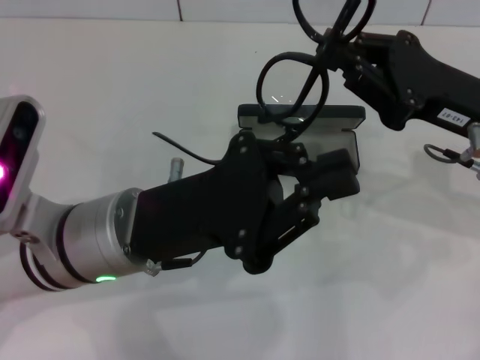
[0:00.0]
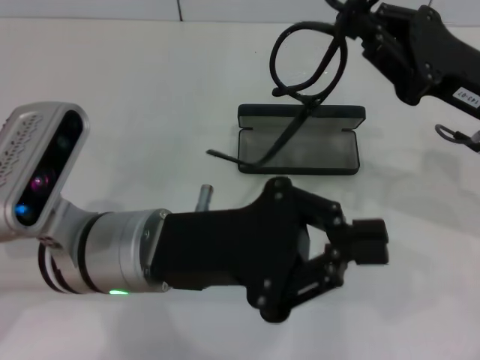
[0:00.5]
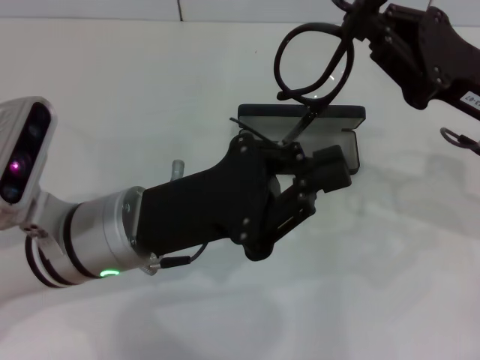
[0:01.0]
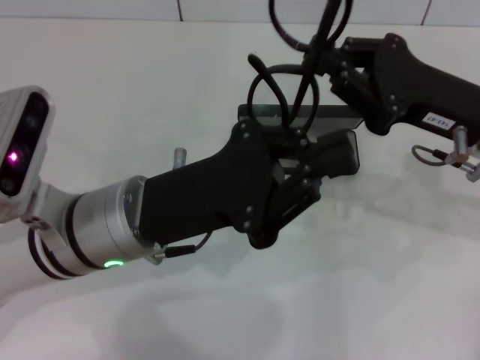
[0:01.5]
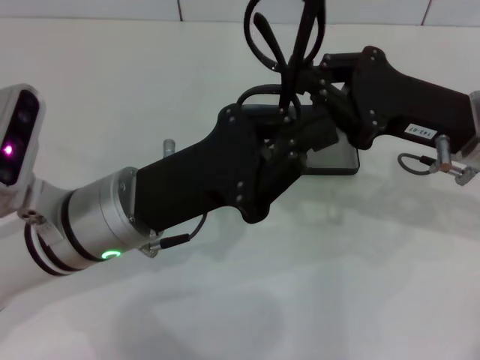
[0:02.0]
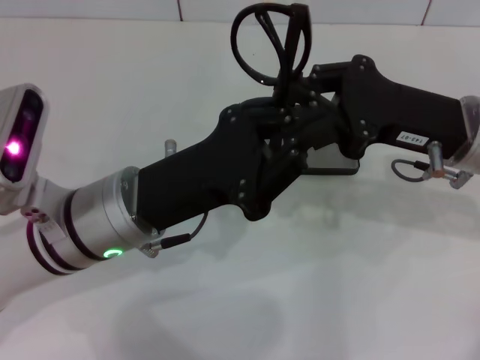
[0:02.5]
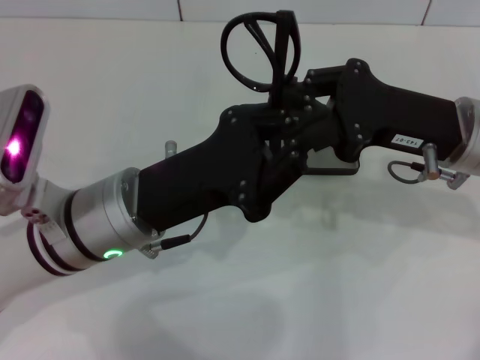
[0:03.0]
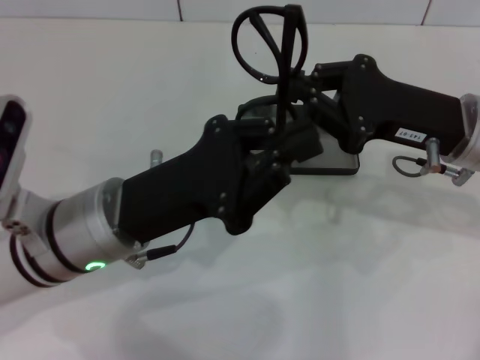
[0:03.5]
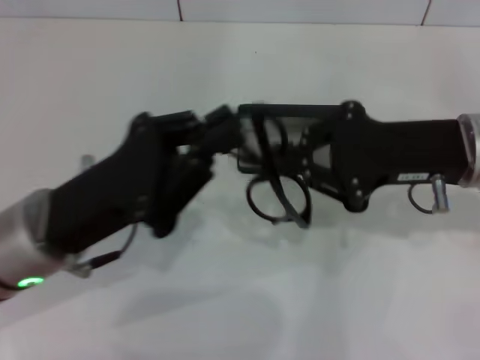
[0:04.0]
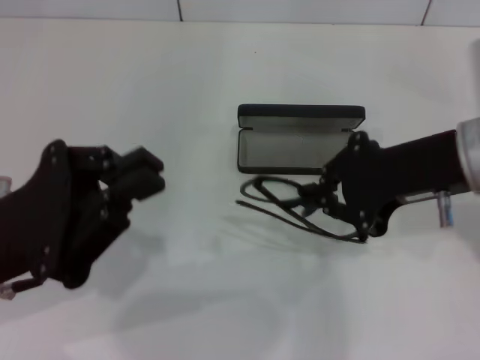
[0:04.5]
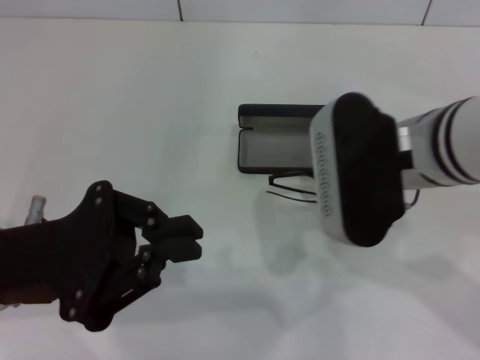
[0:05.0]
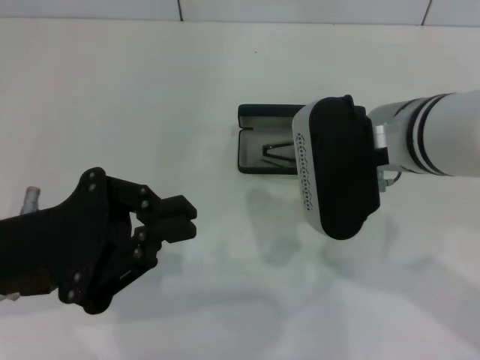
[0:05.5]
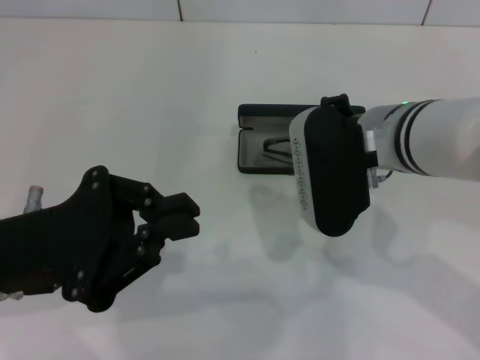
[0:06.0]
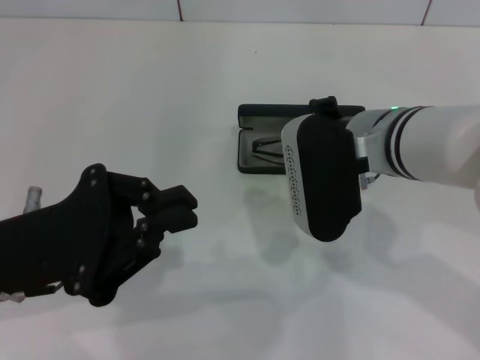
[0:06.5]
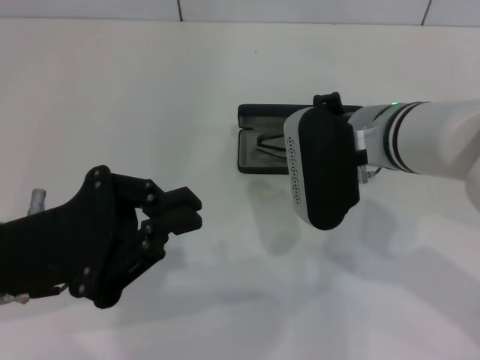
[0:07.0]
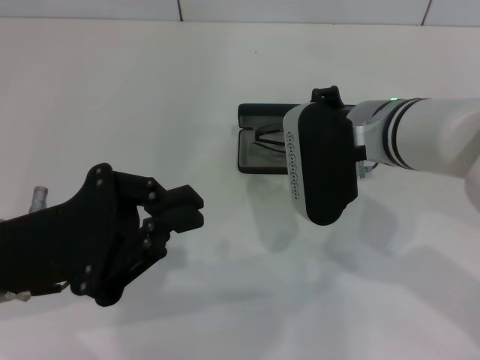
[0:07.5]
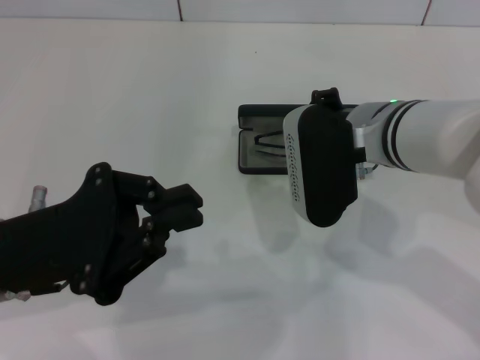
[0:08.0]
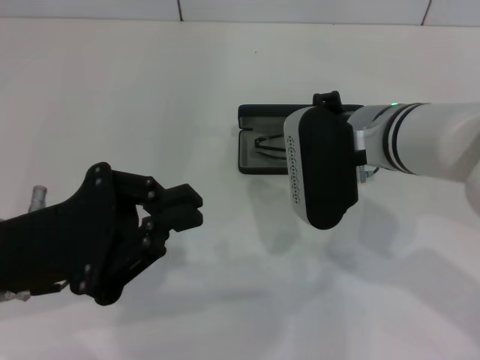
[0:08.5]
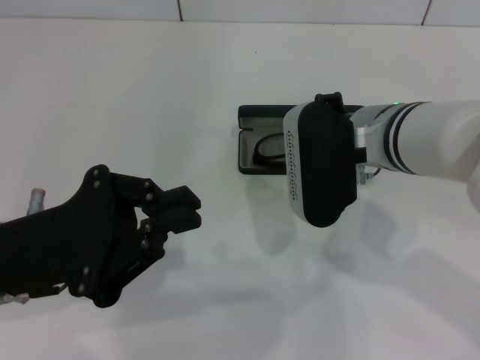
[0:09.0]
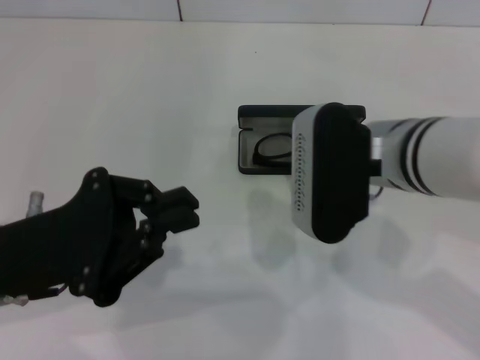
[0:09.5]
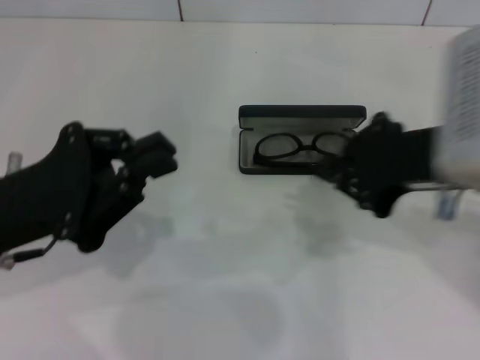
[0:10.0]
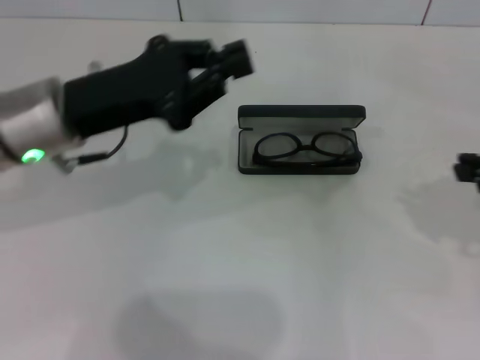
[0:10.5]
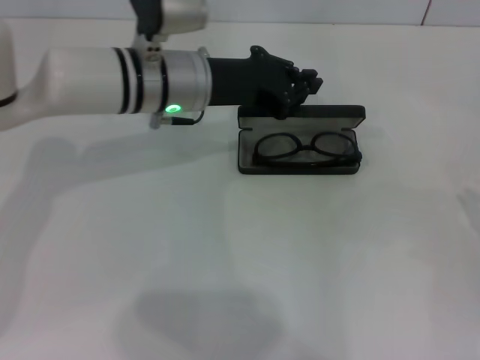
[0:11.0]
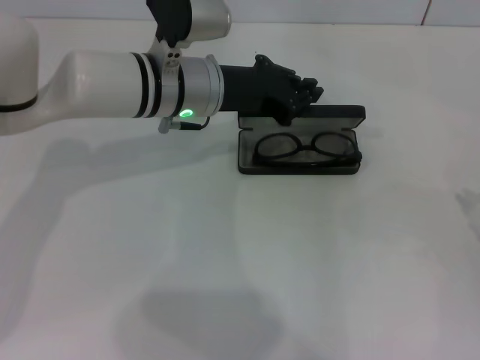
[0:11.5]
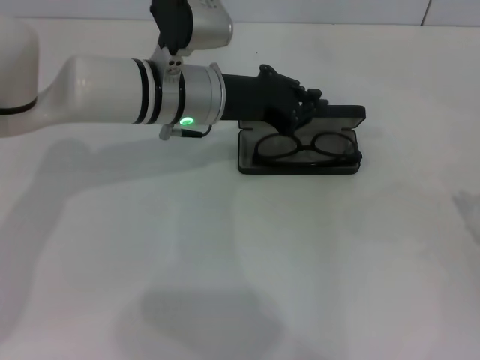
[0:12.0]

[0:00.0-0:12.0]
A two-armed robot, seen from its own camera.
Step, 0:00.0 to 0:03.0: Fold the frame with your left hand.
Step, 0:03.5 to 0:08.5: Put the glasses into the case with your right hand.
0:02.0 to 0:04.0: The left gripper goes roughly 5 cm to the left.
0:04.0 to 0:06.0: The right gripper travels to the left by roughly 10 cm.
0:06.0 to 0:08.0: The grippers make only small movements.
0:08.0 to 0:10.0: The right gripper shifts roughly 15 cm upward, to the right and backward.
0:10.0 to 0:12.0: The left gripper travels forward and to the right by approximately 20 cm. Meanwhile the right gripper heads to the right and downward, covering about 25 cm.

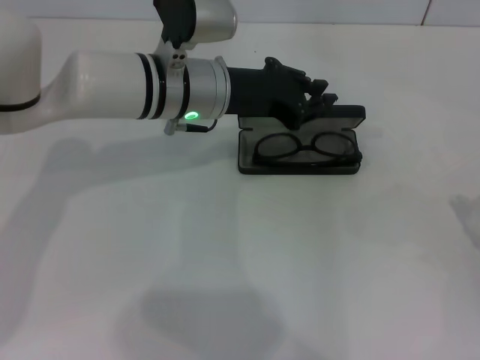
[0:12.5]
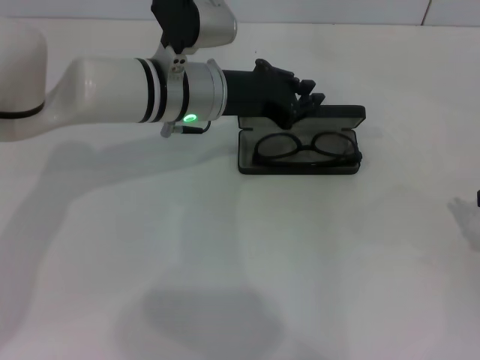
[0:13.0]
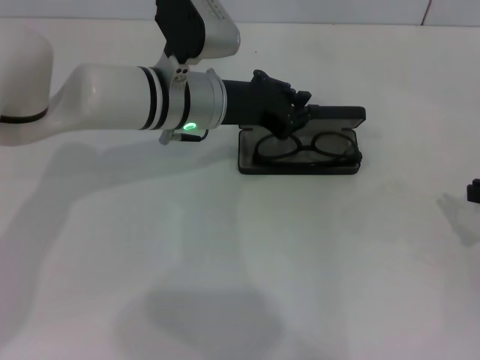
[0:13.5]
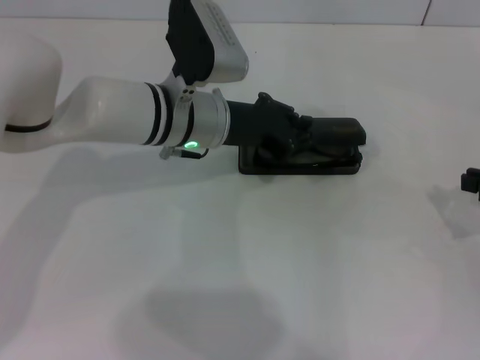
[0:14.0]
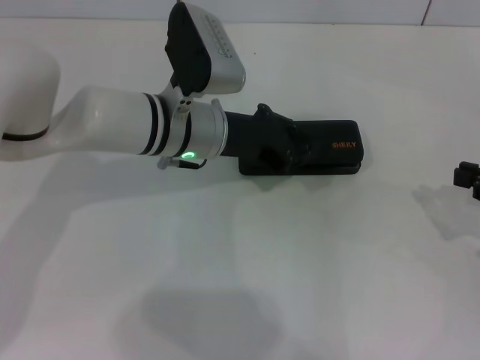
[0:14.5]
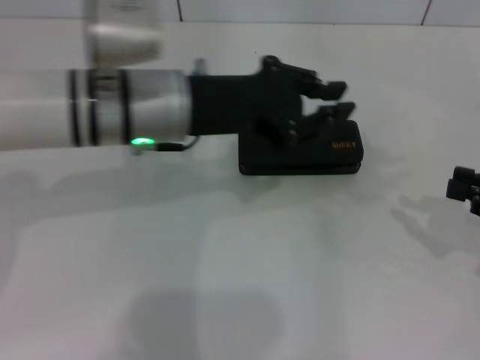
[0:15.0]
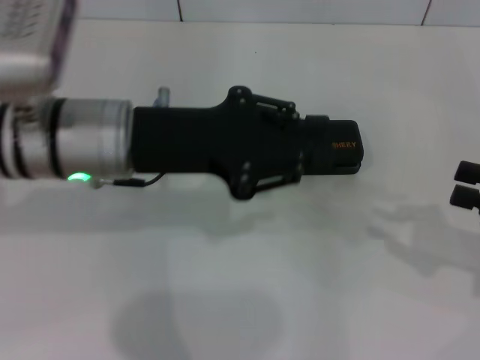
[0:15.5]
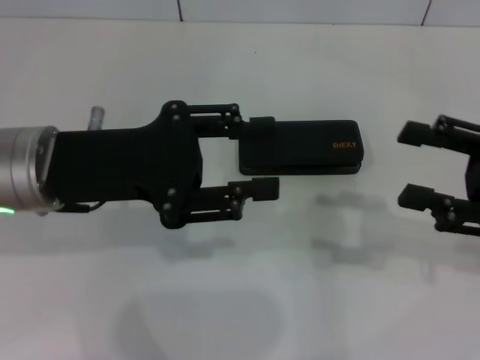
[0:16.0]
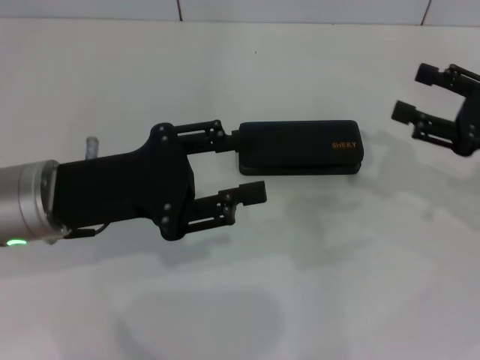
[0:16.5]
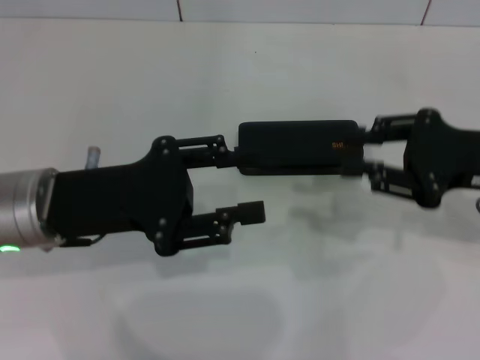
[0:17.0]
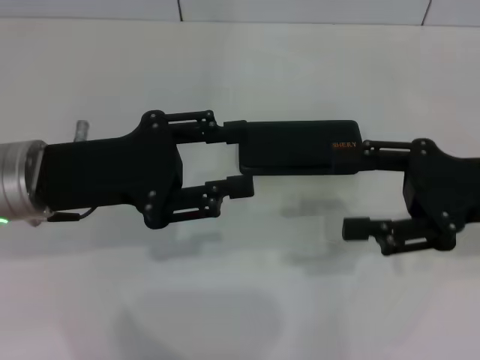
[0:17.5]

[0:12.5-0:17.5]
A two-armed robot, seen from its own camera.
0:12.5 to 0:15.0: The left gripper goes about 5 cm backward.
0:15.0 to 0:17.5: The right gripper is displaced to the left by roughly 10 cm, and opens up. Meanwhile the left gripper heads to the left and backward, covering roughly 10 cm, and opens.
